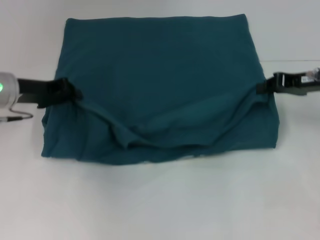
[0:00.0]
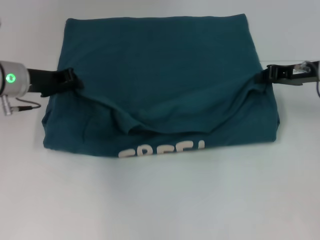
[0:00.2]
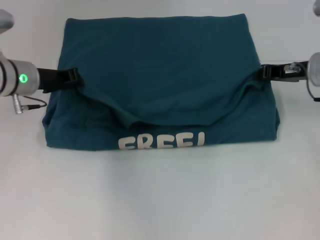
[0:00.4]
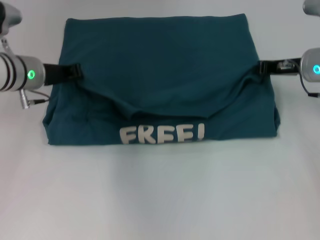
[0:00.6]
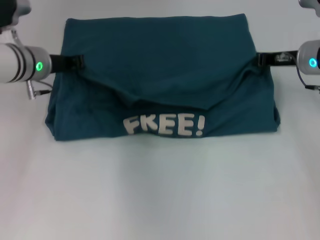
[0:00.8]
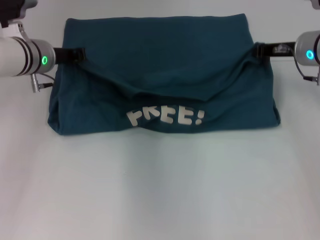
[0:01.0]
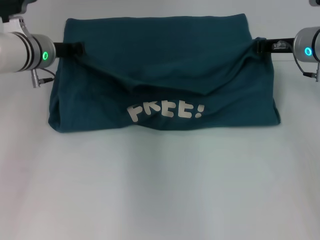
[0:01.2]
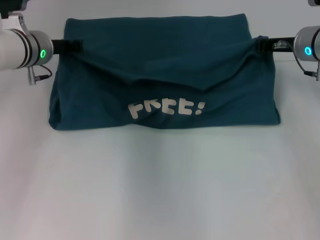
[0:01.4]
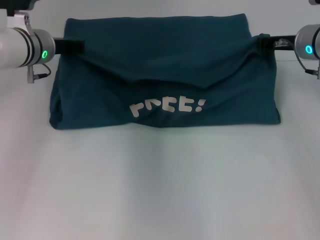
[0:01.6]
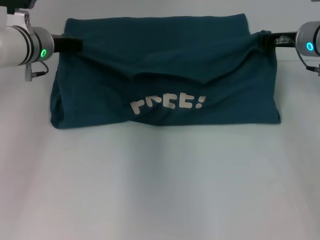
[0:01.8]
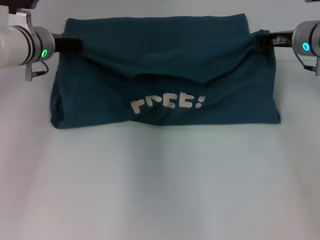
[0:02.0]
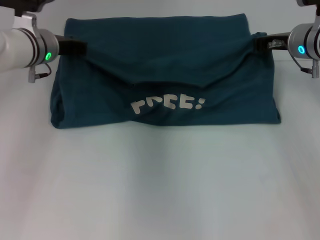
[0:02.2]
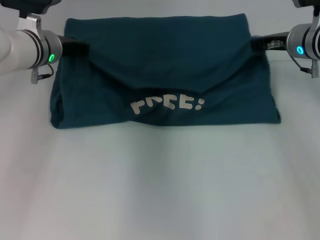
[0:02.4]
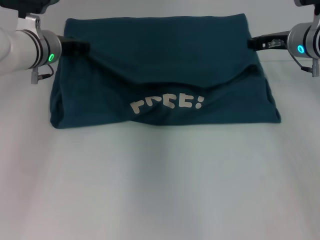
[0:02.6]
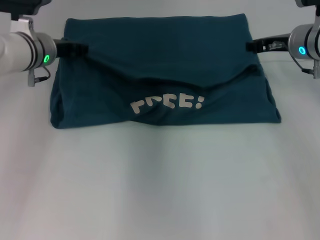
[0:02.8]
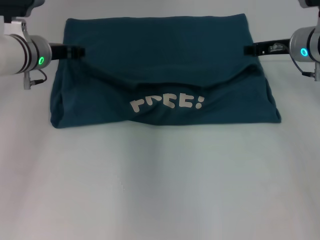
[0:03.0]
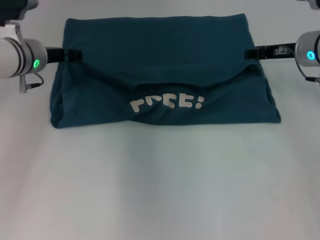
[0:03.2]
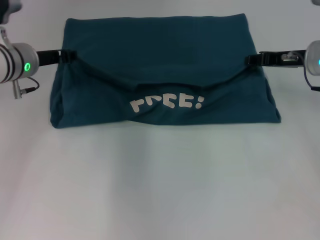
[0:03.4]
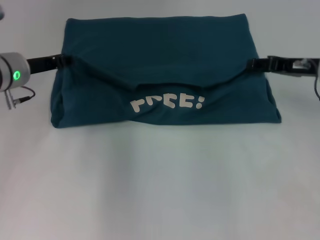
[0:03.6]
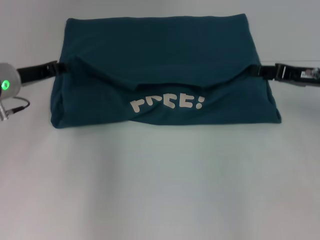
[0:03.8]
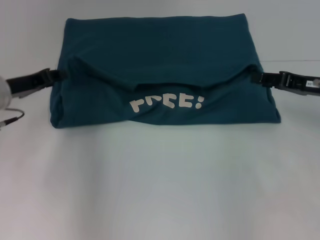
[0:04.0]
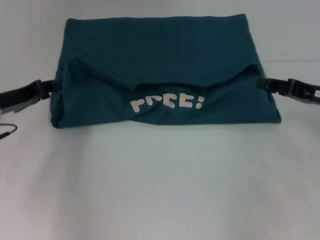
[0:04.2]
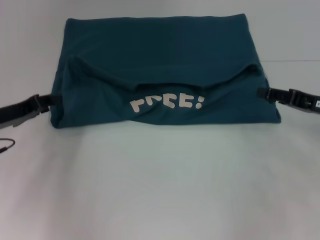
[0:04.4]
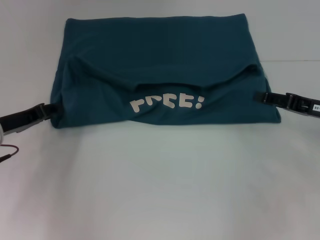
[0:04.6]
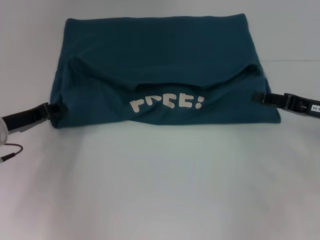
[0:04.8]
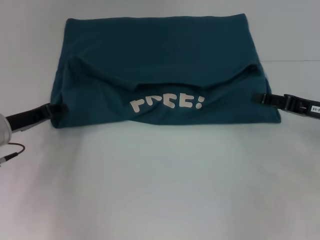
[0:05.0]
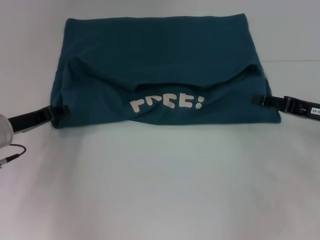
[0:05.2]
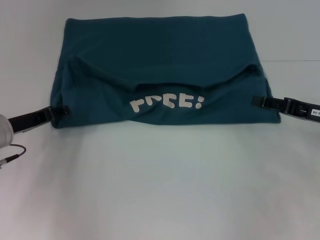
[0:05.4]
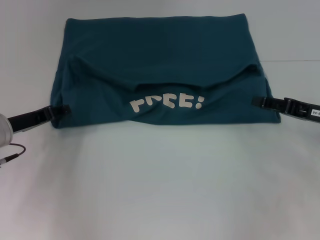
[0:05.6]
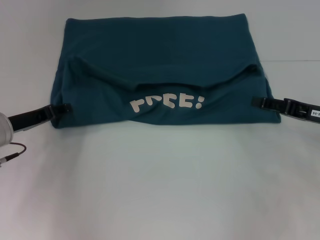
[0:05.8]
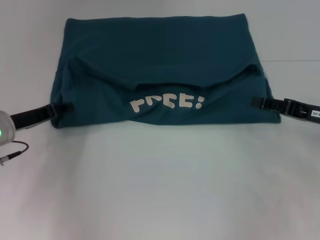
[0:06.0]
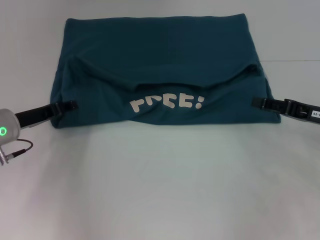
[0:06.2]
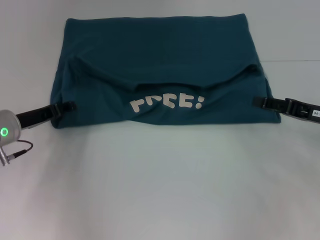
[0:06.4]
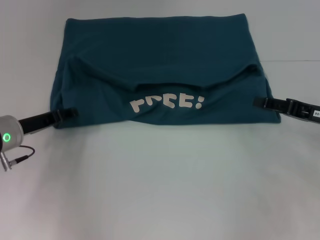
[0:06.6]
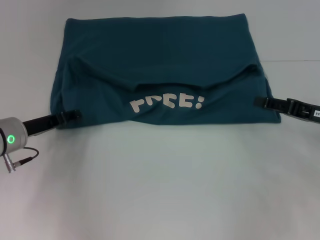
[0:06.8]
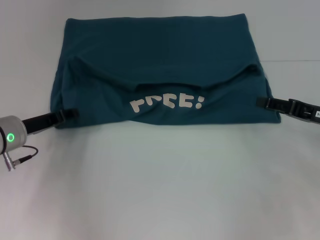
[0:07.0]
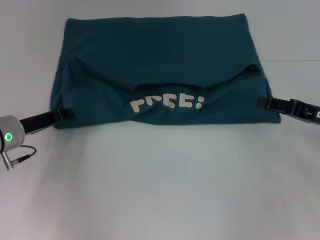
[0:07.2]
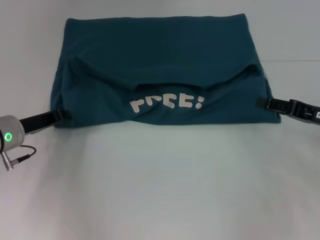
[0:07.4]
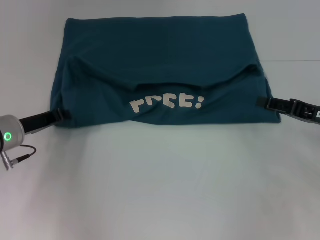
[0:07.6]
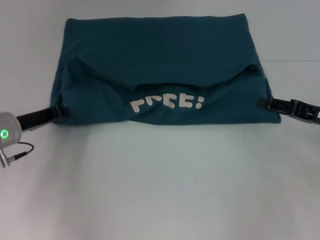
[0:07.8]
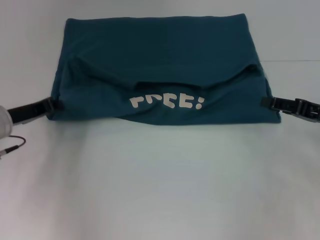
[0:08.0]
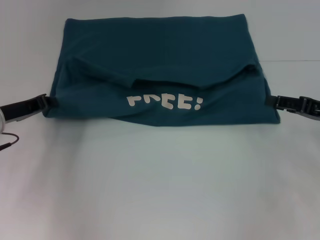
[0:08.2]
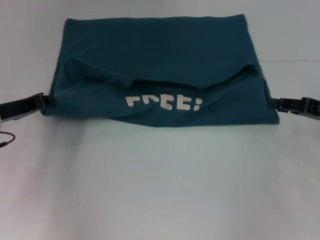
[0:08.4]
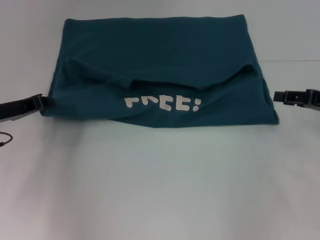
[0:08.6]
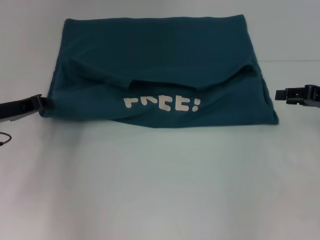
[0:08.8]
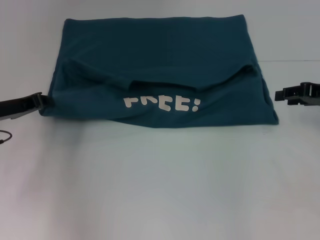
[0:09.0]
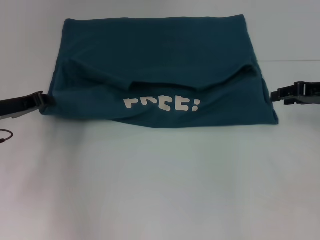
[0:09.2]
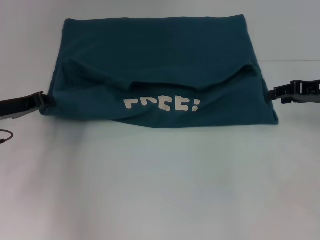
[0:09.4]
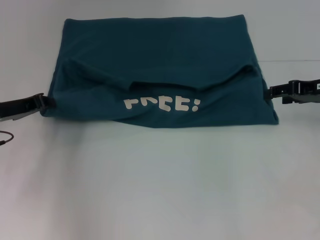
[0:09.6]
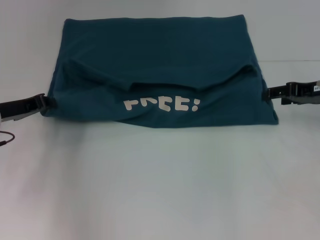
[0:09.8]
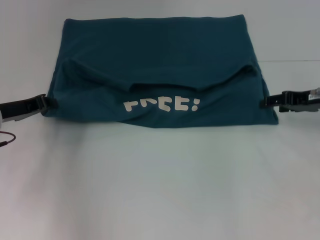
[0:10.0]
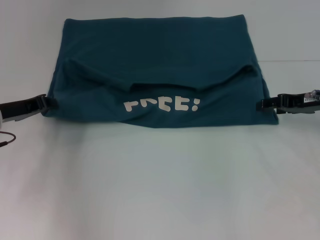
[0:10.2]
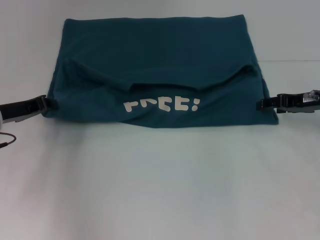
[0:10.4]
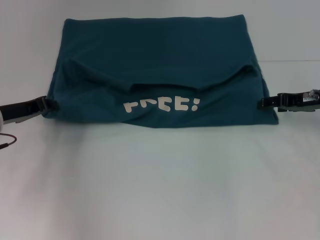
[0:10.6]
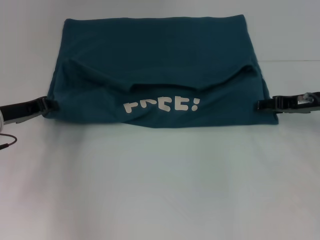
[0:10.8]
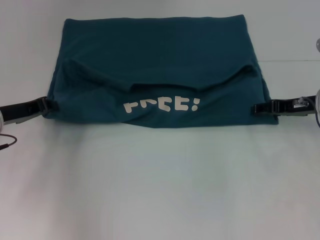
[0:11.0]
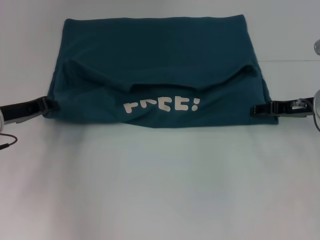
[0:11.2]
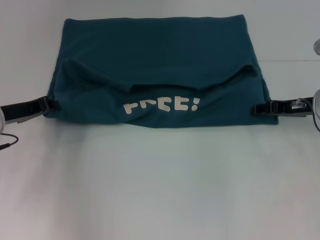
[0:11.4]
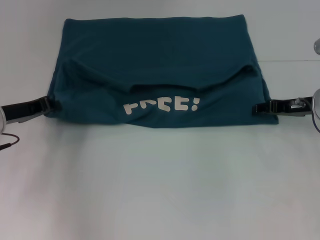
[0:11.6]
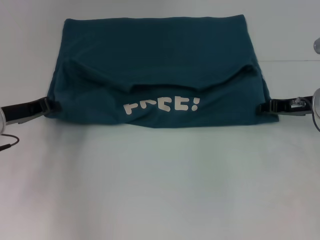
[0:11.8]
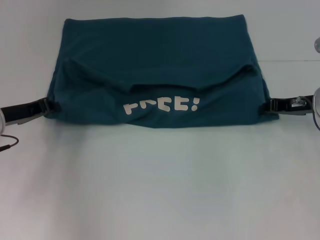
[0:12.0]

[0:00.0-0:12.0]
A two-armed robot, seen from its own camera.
Step, 0.0 to 3.6 s: Fold the clothes to the left.
Step, 0.0 to 3.6 s: Fold the clothes to the right.
0.0 to 1.6 s: The right gripper goes approximately 5 cm forward. The left gripper shifts some 10 cm forward and to the right.
1.6 to 3.0 s: The left gripper opens. The right gripper opens.
3.0 to 4.4 s: The left gripper travels backward, to the left and downward by approximately 15 cm, while the right gripper travels backward and to the right by approximately 15 cm.
4.4 to 6.0 s: The grippers move only a little.
6.0 to 7.6 s: The left gripper closes up.
7.6 to 9.0 s: The right gripper travels forward by roughly 5 cm.
9.0 to 10.4 s: The grippers make only small movements.
10.4 to 12.0 s: The right gripper closes its fingers.

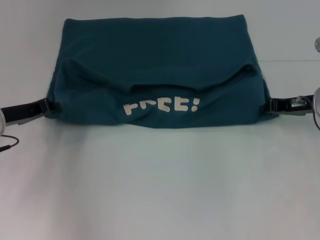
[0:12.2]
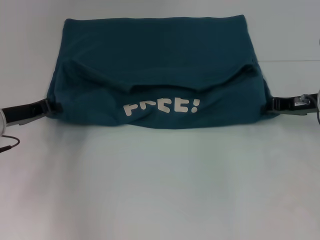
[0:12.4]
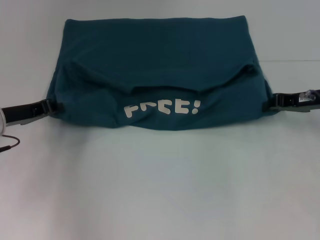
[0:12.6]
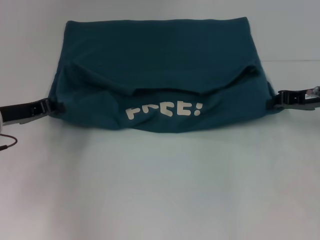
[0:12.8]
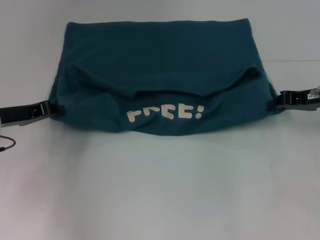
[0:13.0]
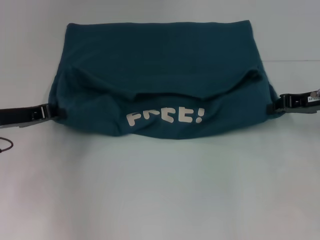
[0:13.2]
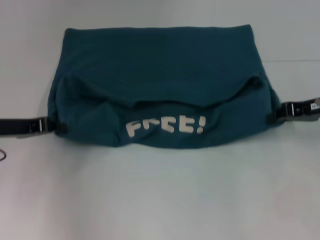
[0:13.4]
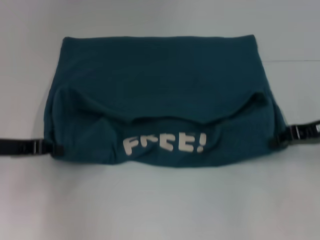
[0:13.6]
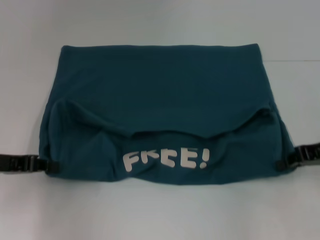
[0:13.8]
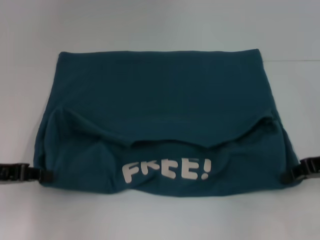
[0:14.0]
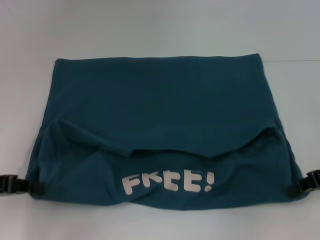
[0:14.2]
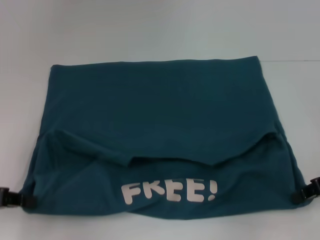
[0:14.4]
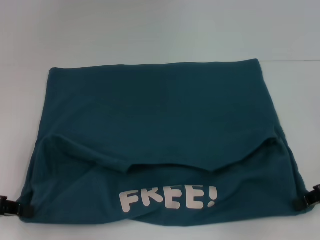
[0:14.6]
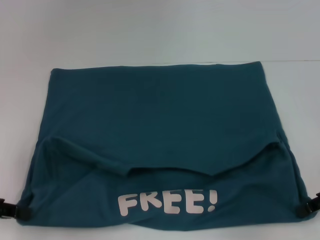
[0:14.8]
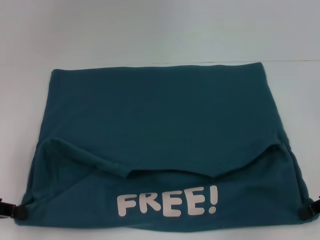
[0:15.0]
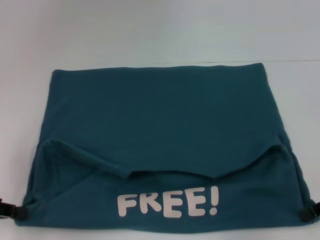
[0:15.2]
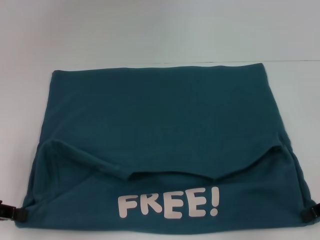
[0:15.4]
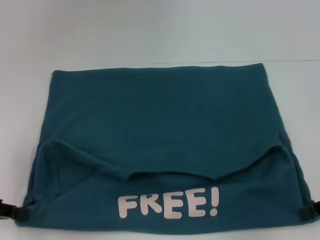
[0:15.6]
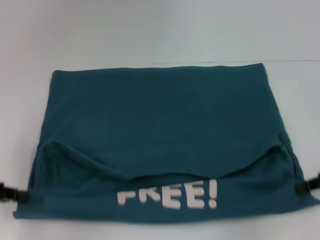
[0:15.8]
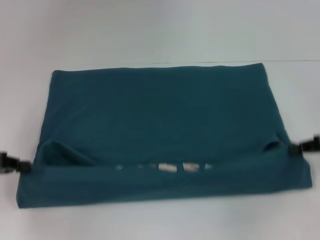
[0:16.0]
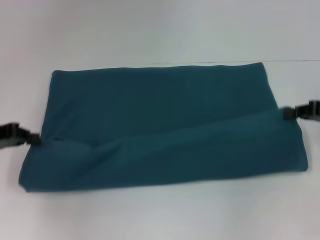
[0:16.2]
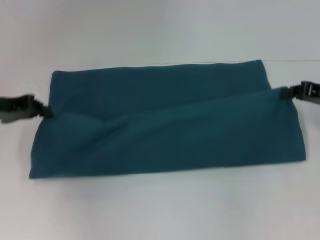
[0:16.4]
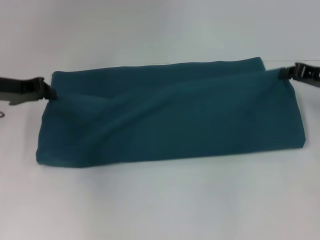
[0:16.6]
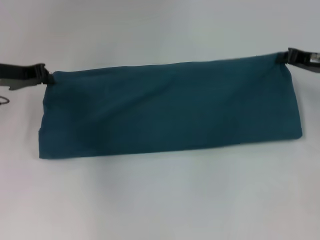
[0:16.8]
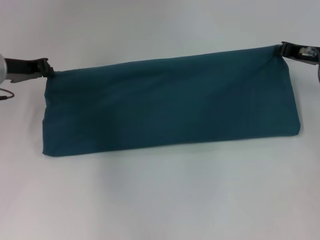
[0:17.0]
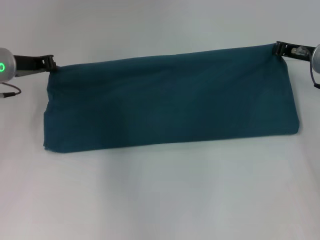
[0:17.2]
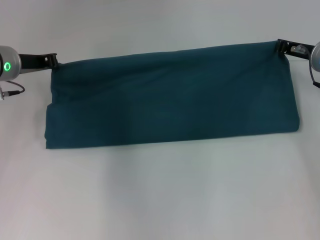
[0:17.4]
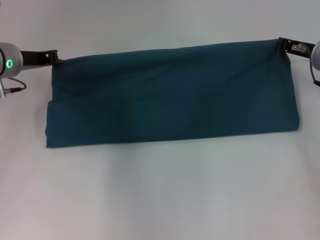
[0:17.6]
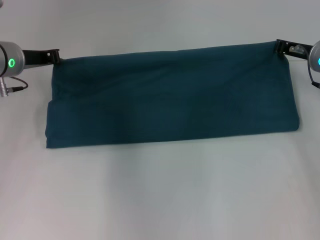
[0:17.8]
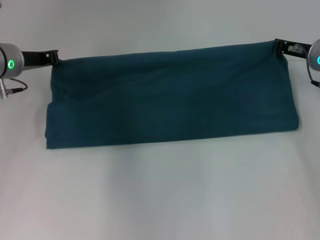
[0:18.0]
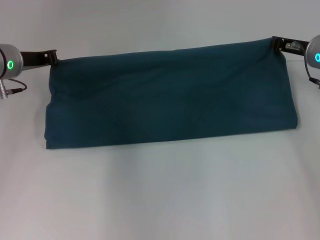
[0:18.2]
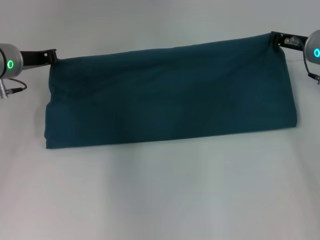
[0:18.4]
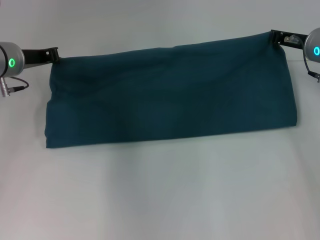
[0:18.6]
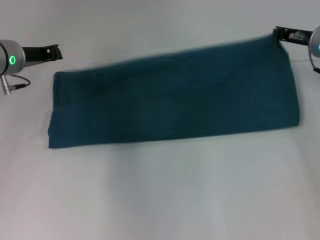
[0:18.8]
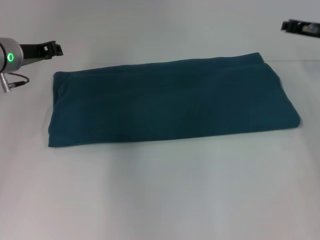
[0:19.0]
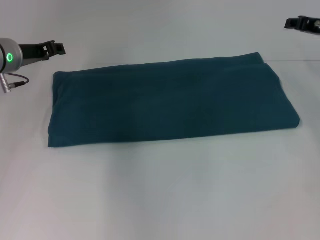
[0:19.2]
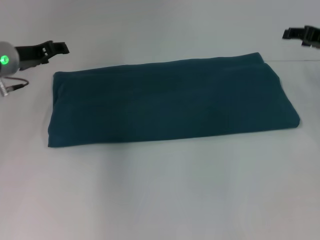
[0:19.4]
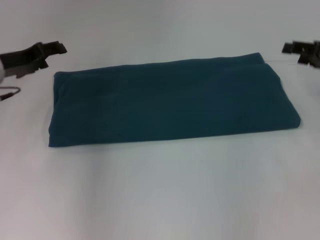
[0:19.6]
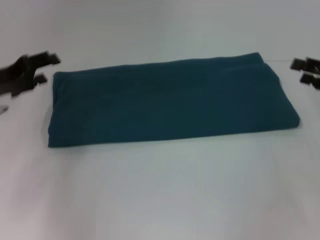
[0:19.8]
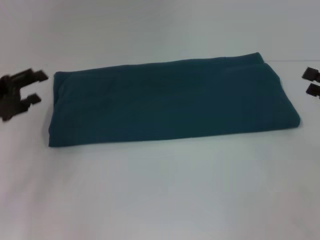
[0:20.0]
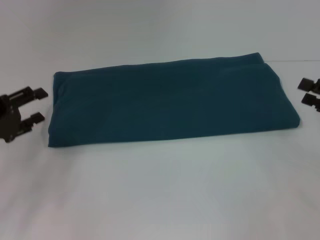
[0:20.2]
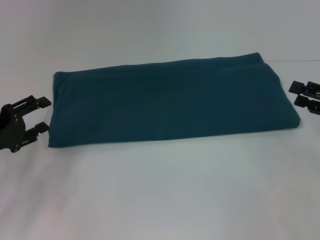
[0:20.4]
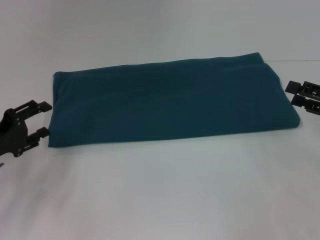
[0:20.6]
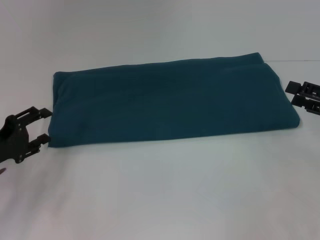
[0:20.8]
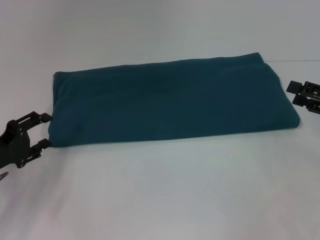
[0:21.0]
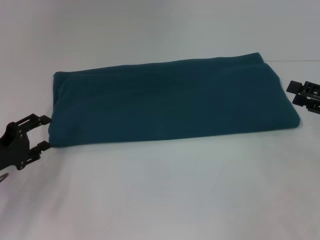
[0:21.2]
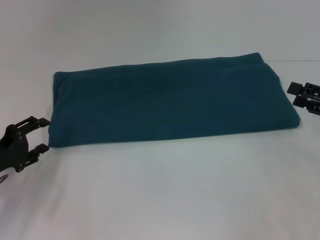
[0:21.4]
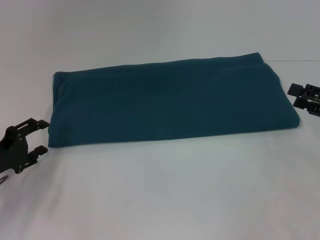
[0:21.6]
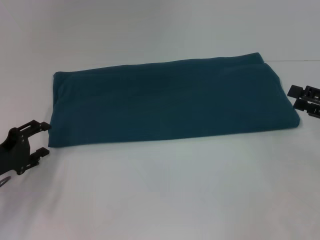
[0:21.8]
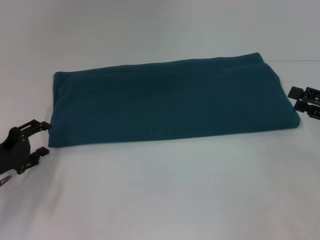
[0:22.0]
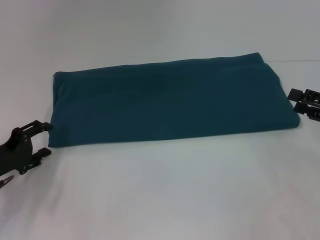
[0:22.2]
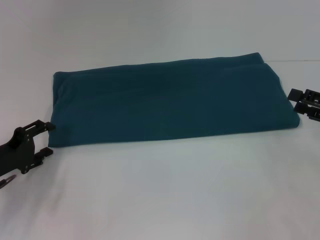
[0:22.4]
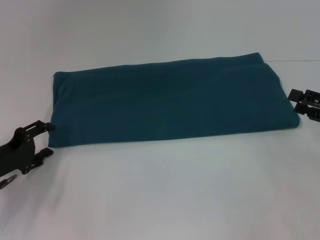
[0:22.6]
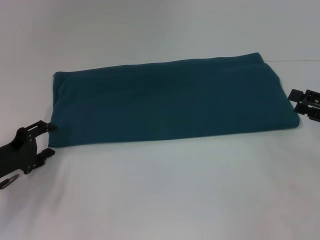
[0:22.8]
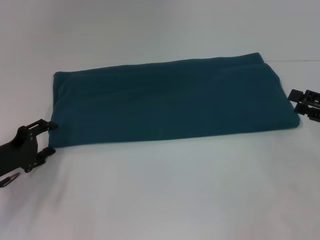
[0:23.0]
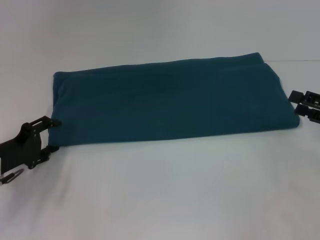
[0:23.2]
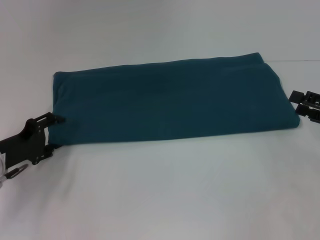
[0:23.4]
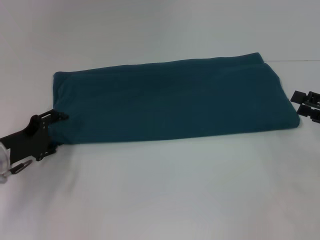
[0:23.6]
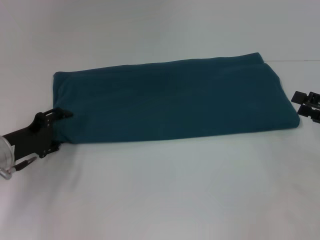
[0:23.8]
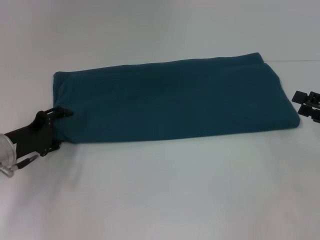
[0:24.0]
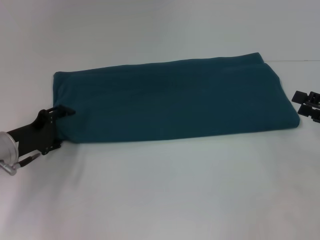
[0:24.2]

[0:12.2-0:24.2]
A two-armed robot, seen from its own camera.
Step, 12.2 to 15.0 s: Pull the clothes with your left hand.
Step, 12.2 to 15.0 s: Pull the clothes with your right hand.
Step, 15.2 to 18.8 s: Fold the clothes to the right.
12.2 to 13.8 s: Both grippers move backward, roughly 5 cm.
13.8 to 15.2 s: The left gripper is displaced backward by about 5 cm, while the right gripper moves some 5 cm.
15.2 to 16.6 s: Both grippers travel together forward, about 15 cm.
16.6 to 18.2 s: The left gripper changes place by some 5 cm. Meanwhile the right gripper goes about 10 cm to the left and forward.
18.2 to 19.8 s: The left gripper is displaced backward and to the left by some 10 cm, and opens, while the right gripper is displaced backward and to the right by roughly 15 cm, and opens its fingers.
19.8 to 21.2 s: The left gripper travels backward and downward by approximately 10 cm.
21.2 to 22.6 s: The grippers make only small movements.
22.6 to 24.2 s: The left gripper shifts by approximately 5 cm.
